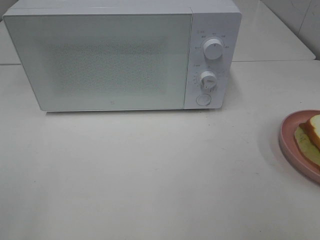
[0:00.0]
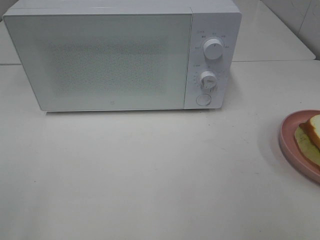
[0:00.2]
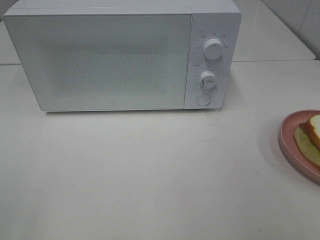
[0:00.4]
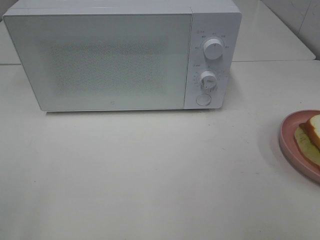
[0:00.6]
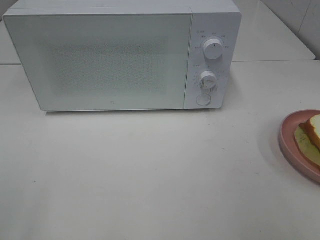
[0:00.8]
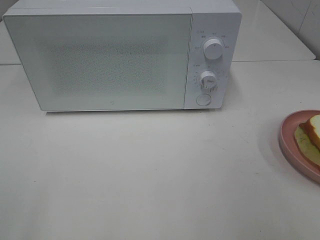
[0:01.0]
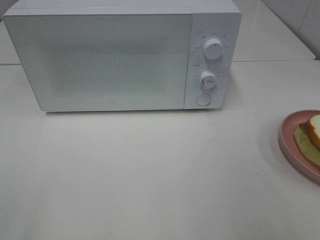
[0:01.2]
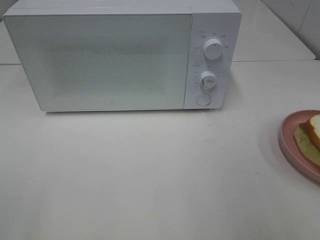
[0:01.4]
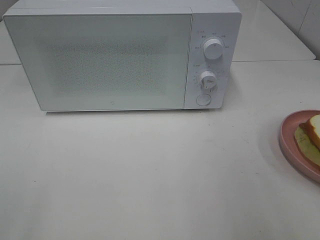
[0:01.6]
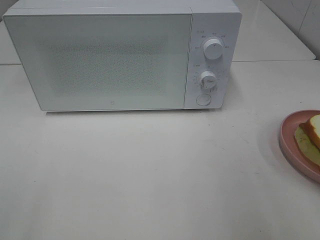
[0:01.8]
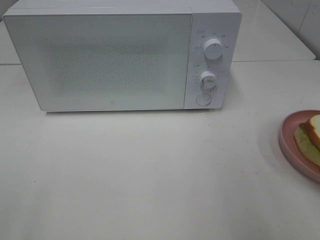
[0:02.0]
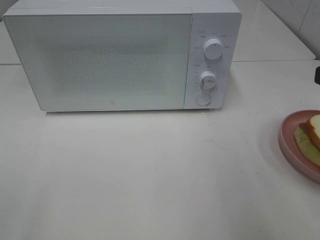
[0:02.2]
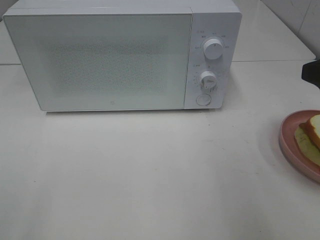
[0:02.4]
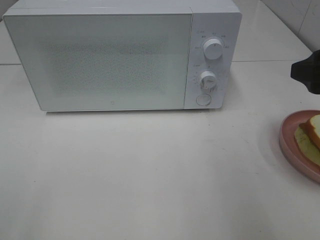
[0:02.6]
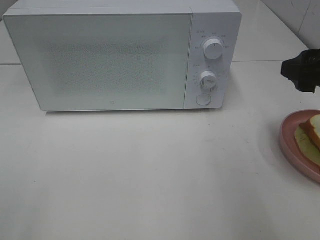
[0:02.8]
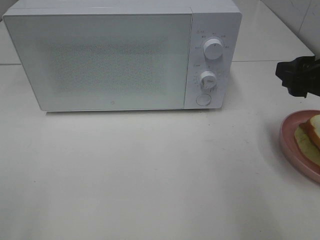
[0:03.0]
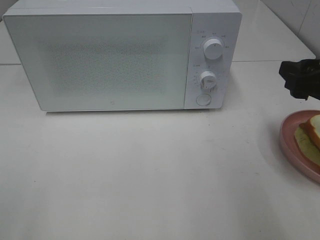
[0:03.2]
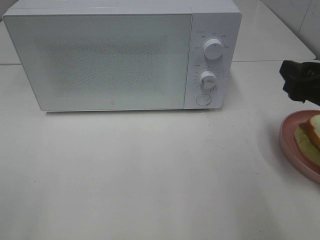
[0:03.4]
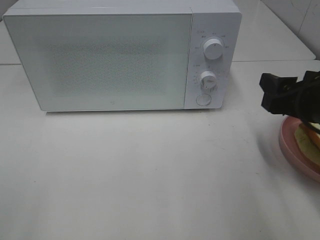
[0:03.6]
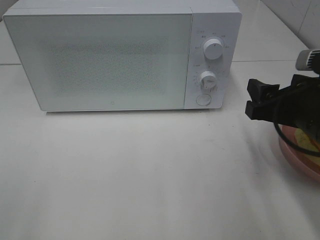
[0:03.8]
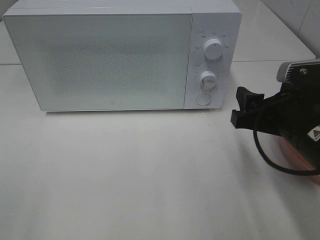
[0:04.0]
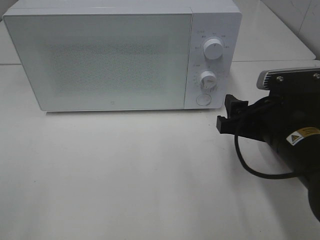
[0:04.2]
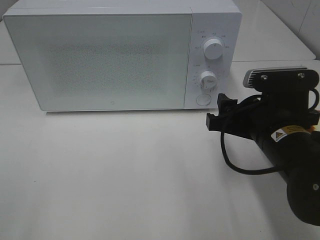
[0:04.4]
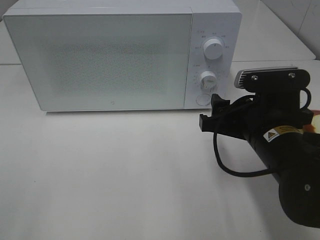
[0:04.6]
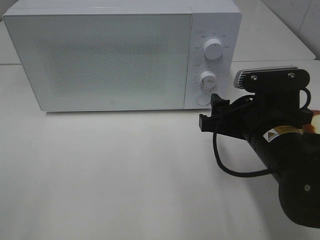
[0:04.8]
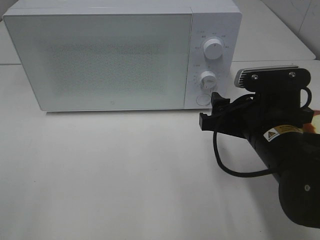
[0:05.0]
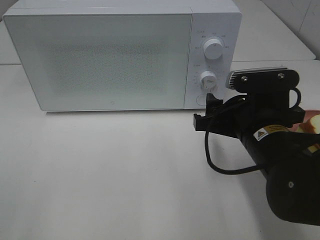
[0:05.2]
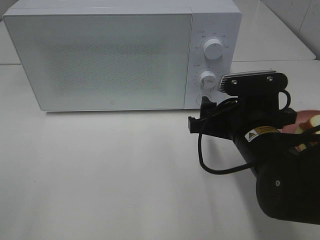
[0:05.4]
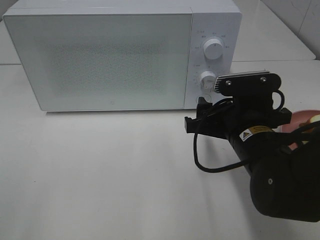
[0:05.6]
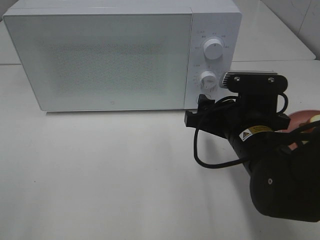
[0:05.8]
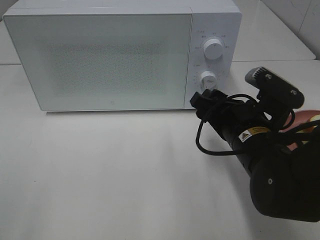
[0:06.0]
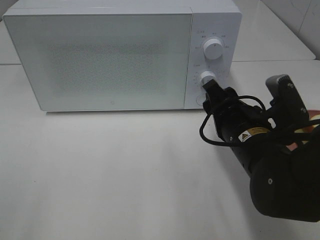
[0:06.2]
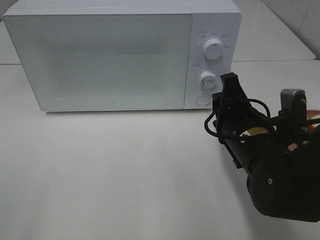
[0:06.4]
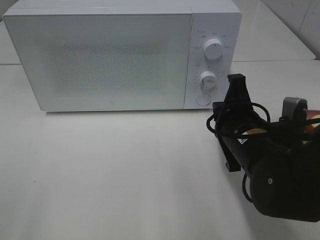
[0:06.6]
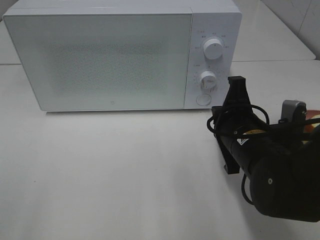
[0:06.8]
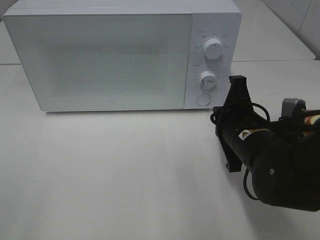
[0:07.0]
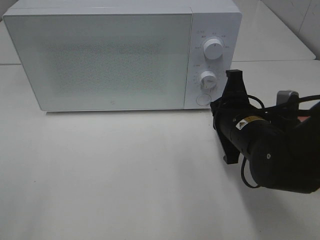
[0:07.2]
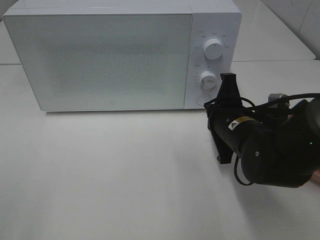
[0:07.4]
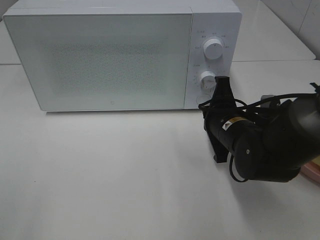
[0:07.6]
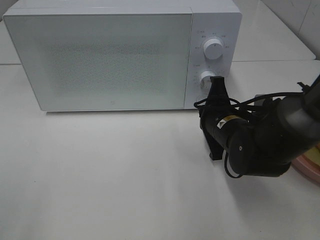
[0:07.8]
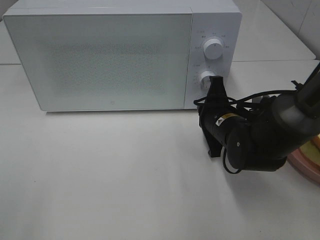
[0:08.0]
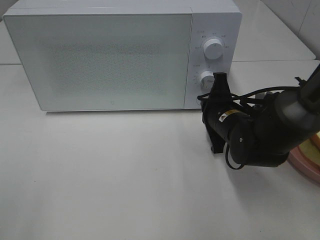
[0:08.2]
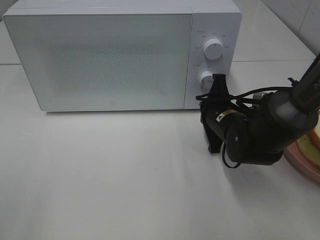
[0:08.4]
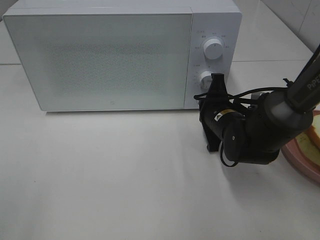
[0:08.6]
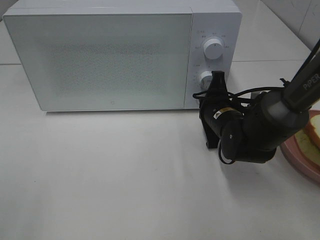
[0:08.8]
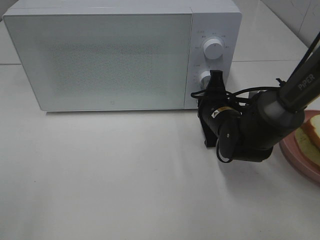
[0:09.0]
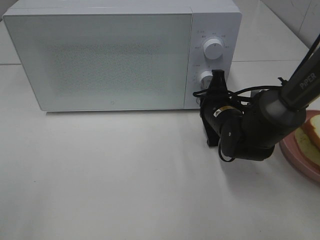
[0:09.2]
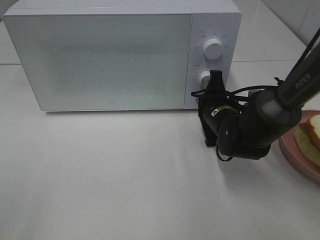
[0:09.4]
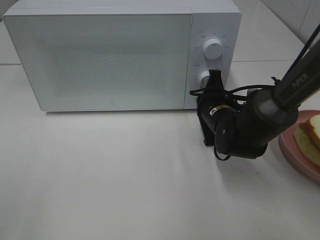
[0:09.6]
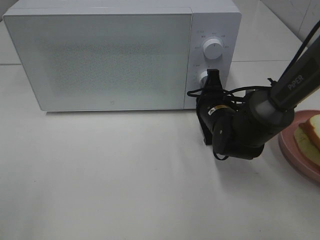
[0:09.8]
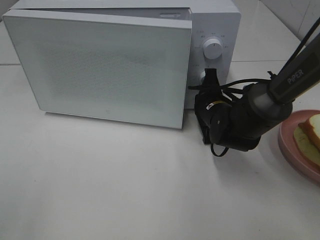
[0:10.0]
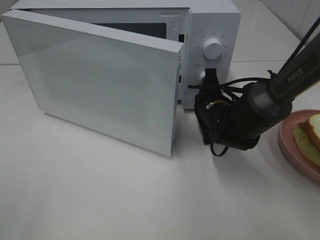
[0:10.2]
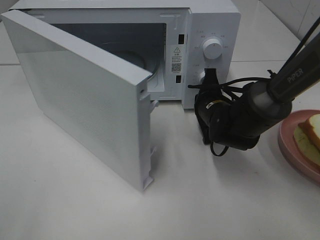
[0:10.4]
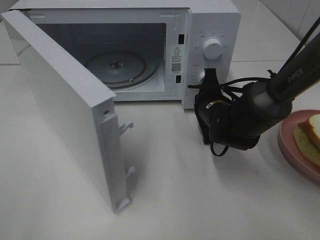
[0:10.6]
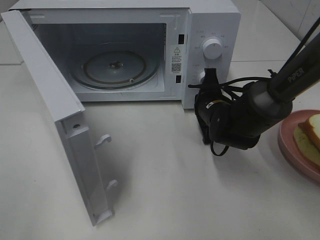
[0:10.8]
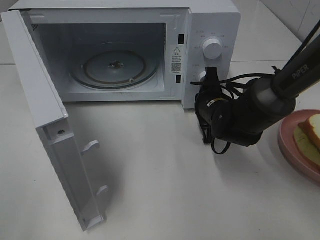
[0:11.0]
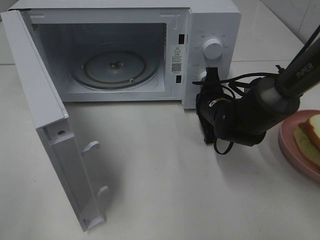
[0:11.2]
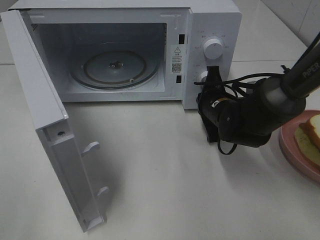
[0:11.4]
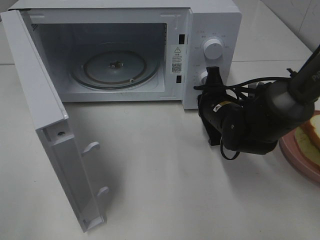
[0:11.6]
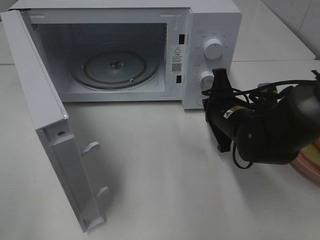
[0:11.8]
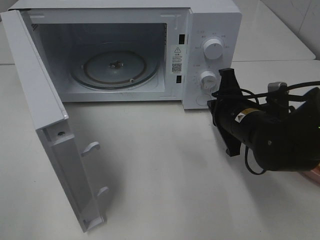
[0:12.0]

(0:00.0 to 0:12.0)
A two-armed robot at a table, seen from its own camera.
Task of the whole recording: Heat Sandwich.
0:01.6 - 0:03.0: The right gripper travels forward and downward by about 15 cm.
0:03.0 - 0:04.4: The right gripper travels to the left and downward by roughly 10 cm.
0:06.0 - 0:07.6: The right gripper shifts approximately 5 cm forward, and closes up.
0:07.6 - 0:09.0: The right gripper moves forward, some 5 cm.
0:10.4 - 0:12.0: The right gripper shifts roughly 10 cm backward.

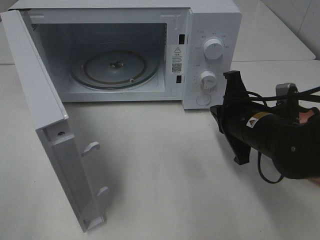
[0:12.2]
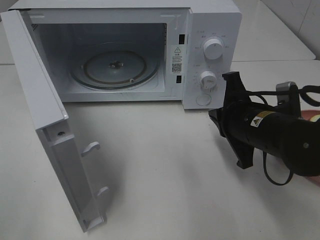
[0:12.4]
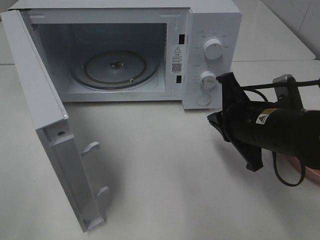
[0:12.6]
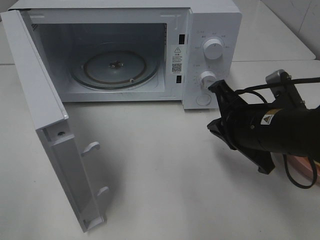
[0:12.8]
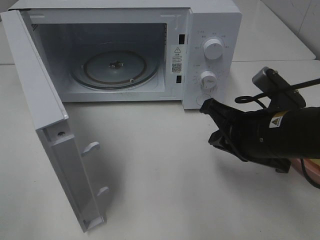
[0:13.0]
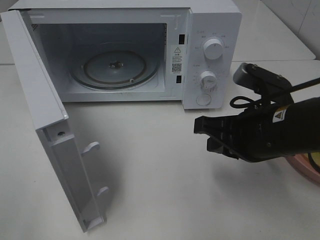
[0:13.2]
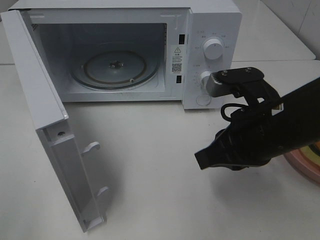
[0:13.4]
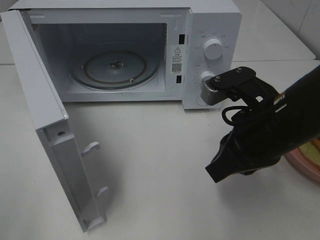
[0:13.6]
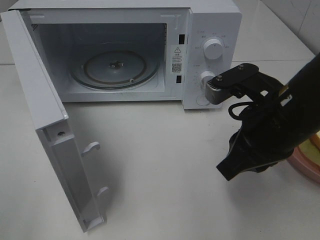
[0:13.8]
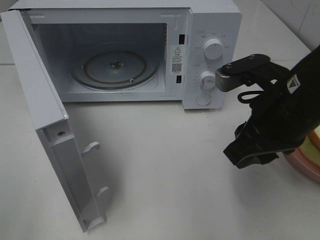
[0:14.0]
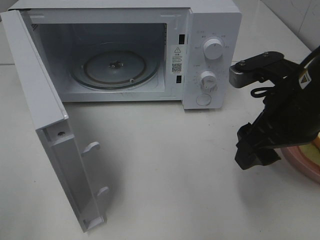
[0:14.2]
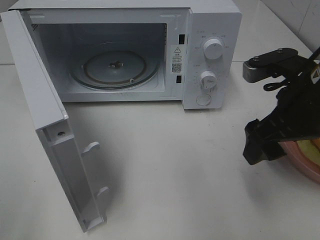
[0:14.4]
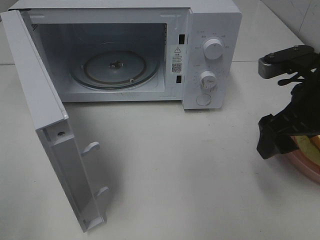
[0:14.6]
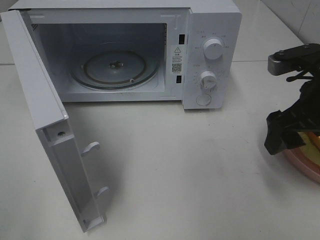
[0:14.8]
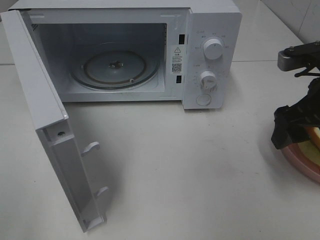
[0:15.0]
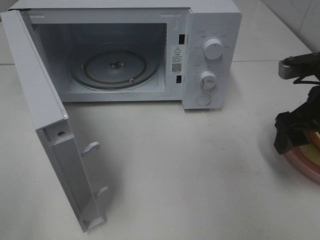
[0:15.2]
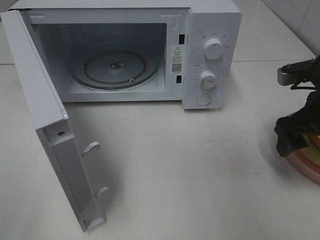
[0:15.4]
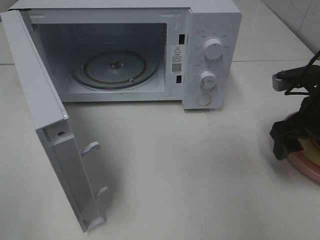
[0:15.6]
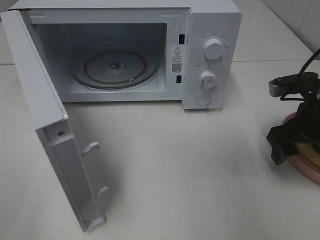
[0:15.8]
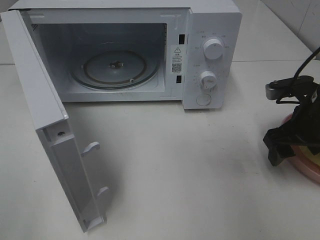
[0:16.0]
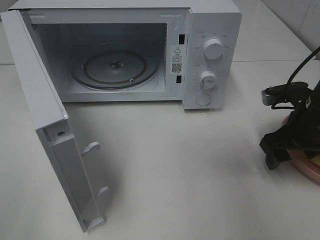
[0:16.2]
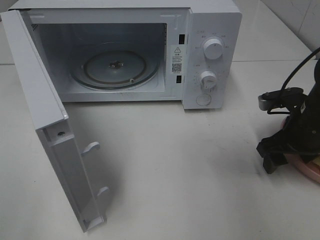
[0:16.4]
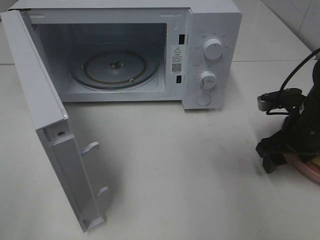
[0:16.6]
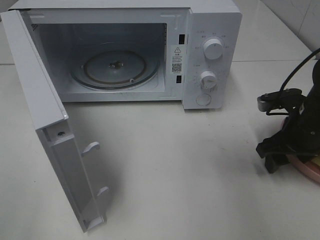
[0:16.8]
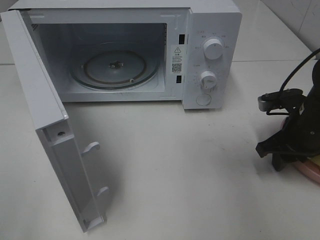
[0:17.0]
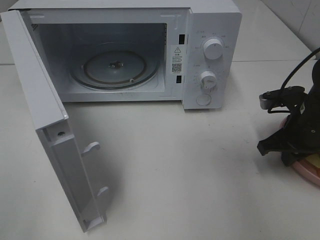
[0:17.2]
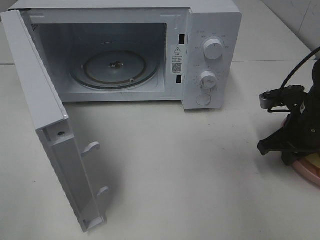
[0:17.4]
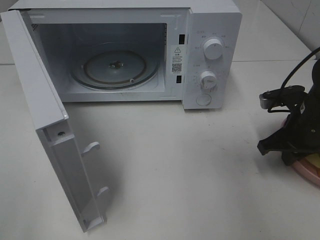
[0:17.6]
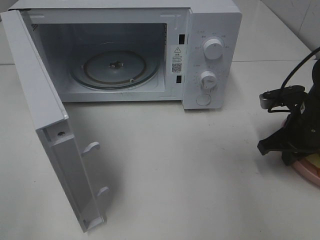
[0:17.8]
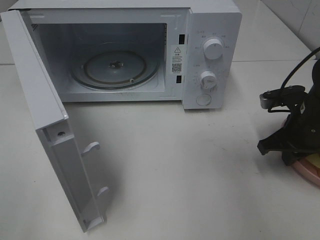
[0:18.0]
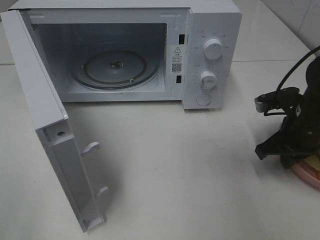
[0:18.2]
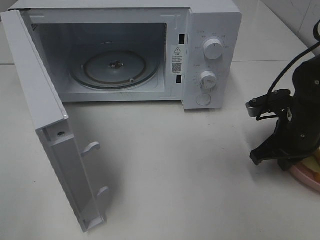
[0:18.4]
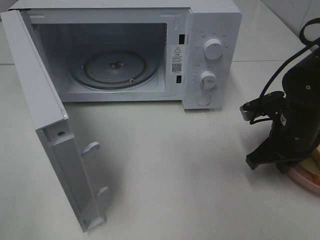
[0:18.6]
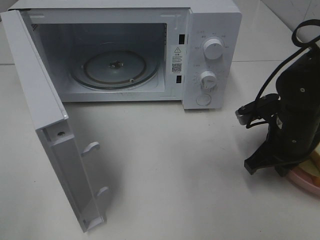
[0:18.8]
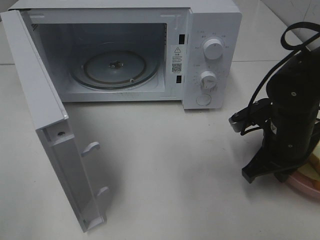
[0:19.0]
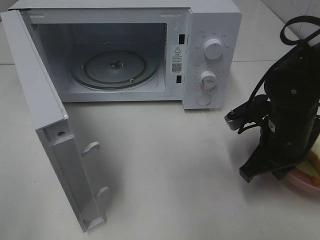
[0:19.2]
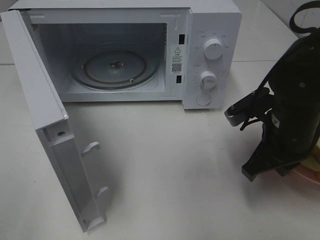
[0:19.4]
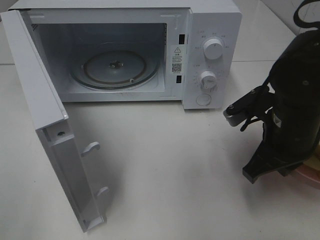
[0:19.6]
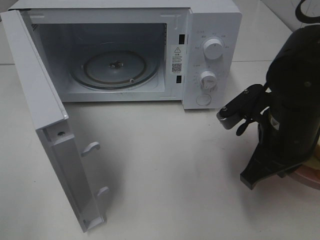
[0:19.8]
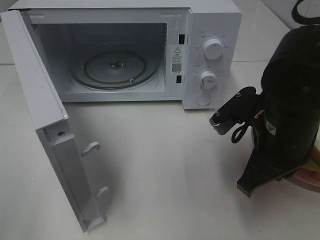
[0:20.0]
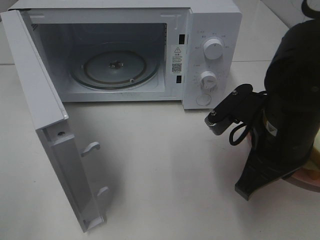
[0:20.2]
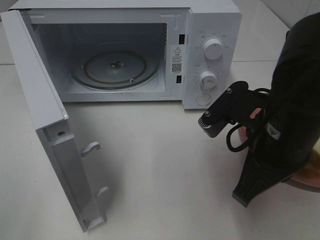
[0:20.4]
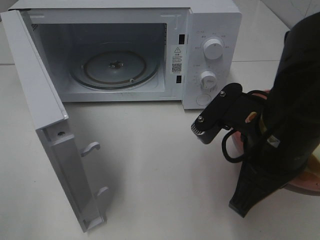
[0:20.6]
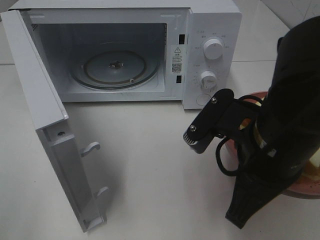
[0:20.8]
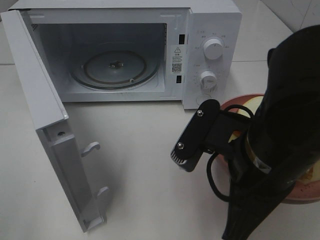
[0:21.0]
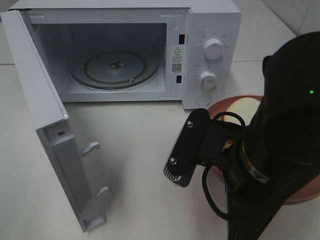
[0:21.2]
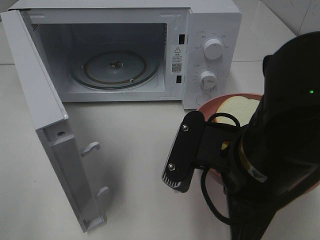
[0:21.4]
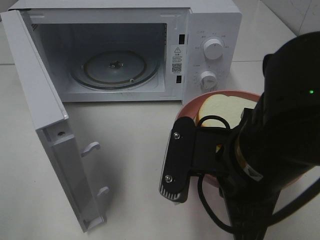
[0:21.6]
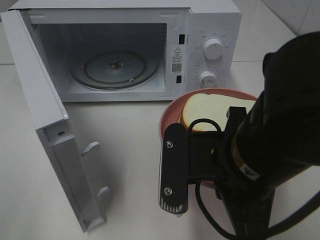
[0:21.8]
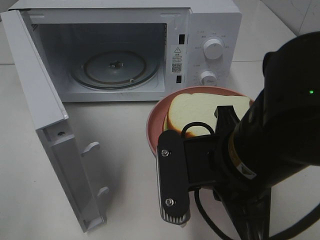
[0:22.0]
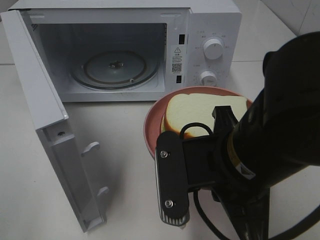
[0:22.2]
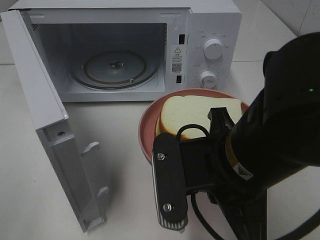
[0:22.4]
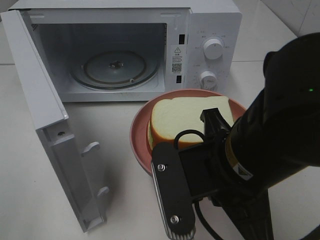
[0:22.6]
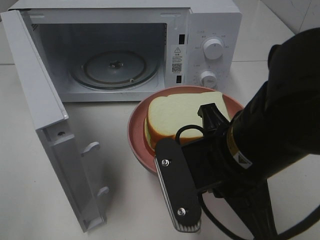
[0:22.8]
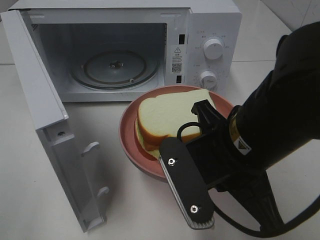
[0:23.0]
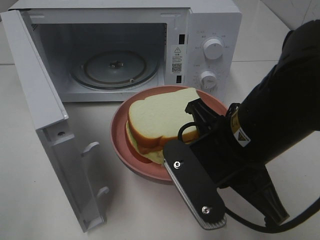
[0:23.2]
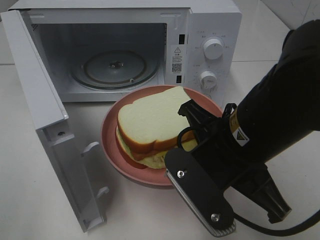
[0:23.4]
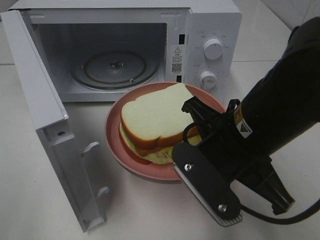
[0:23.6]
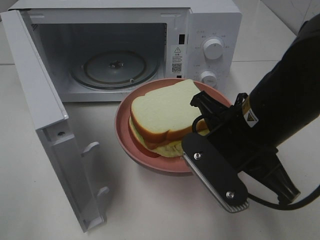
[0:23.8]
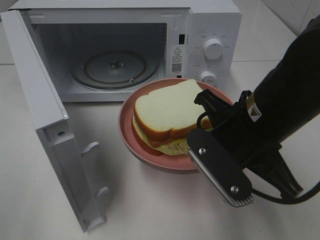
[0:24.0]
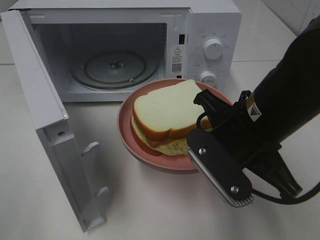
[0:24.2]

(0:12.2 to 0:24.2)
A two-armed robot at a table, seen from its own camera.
Task of the whole recording: Heat Sandwich.
Step, 0:12.2 - 0:18.8: Right hand: grab the plate with the sandwich.
0:12.2 - 0:13.8: The right gripper heads upward and backward, covering approximately 10 cm.
0:13.8 - 0:15.2: The right gripper travels to the right and forward by roughly 10 cm, and opens up.
0:15.2 - 0:16.6: The right gripper travels downward by roughly 10 cm.
0:16.6 - 0:18.2: The right gripper closes up.
0:18.2 - 0:19.8: The right gripper heads to the left, backward and upward, covering some 10 cm.
0:19.8 - 0:21.2: The right gripper shifts roughly 10 cm backward and to the left.
0:22.6 - 0:24.2: The right gripper goes approximately 5 cm forward.
